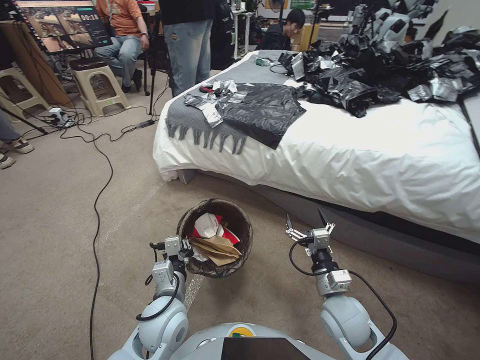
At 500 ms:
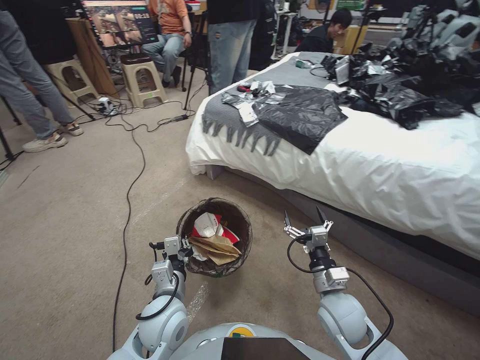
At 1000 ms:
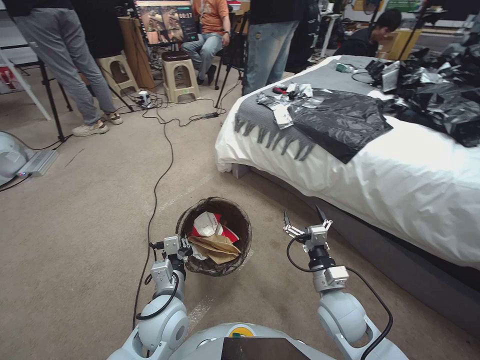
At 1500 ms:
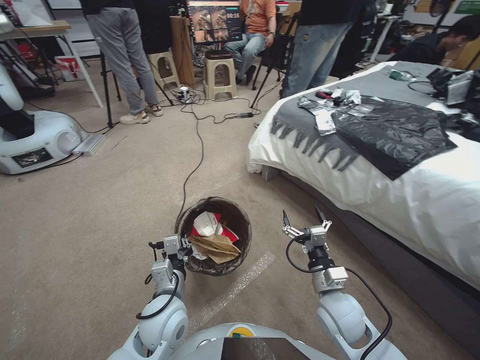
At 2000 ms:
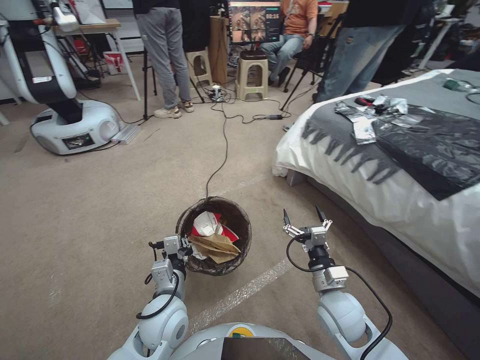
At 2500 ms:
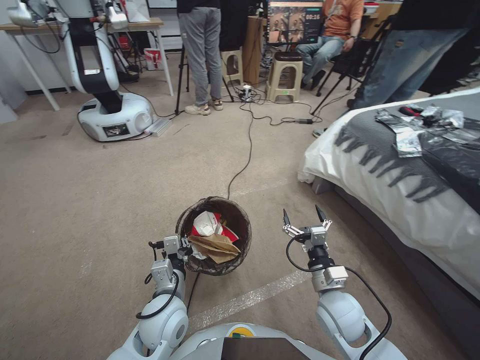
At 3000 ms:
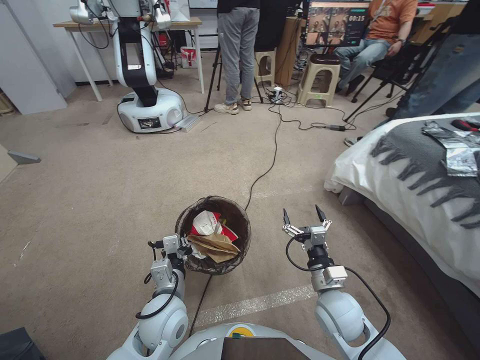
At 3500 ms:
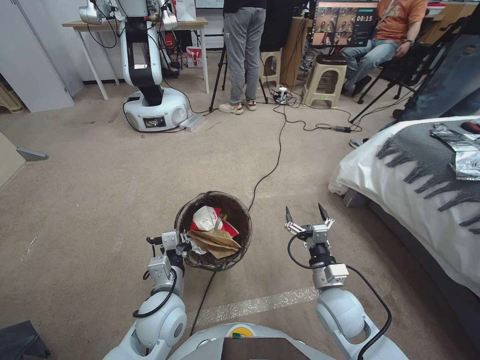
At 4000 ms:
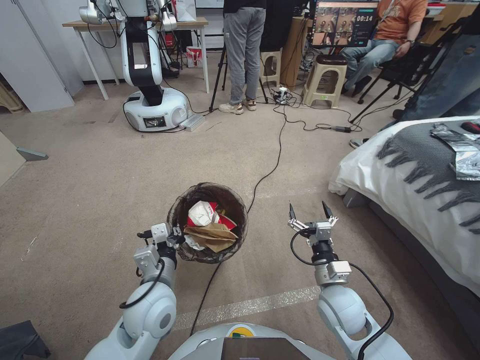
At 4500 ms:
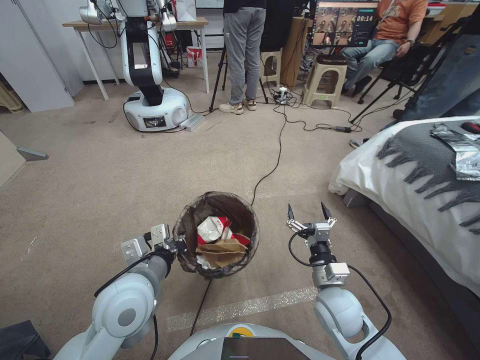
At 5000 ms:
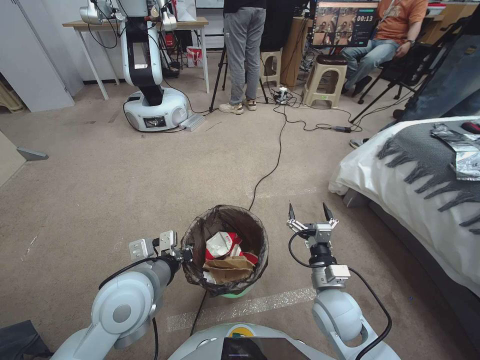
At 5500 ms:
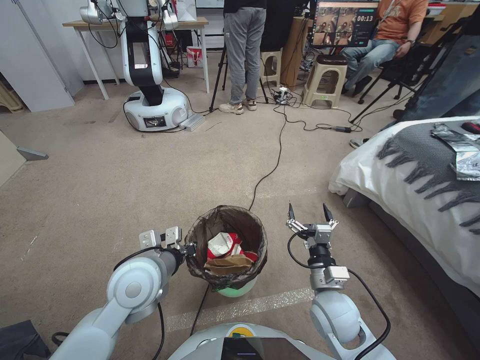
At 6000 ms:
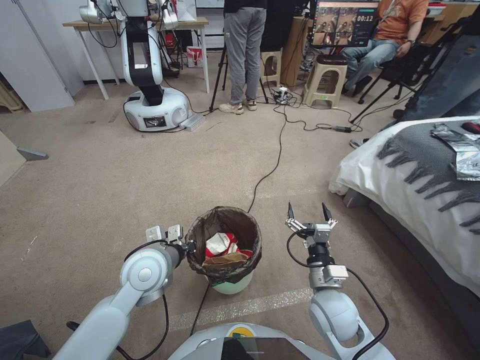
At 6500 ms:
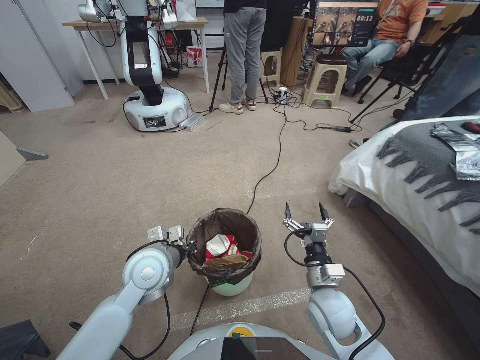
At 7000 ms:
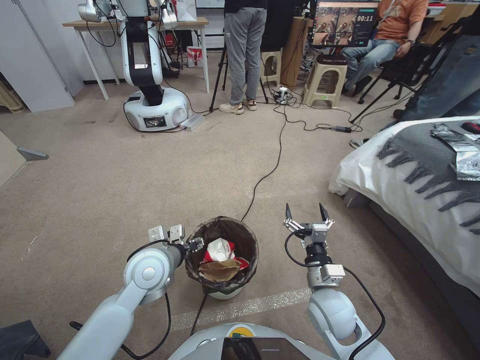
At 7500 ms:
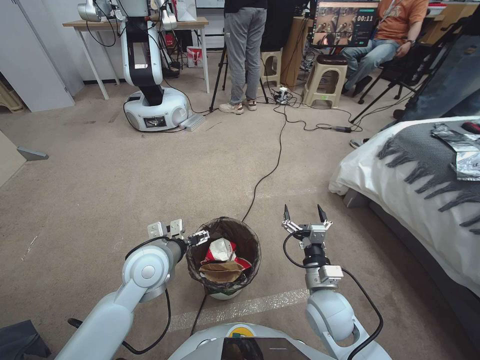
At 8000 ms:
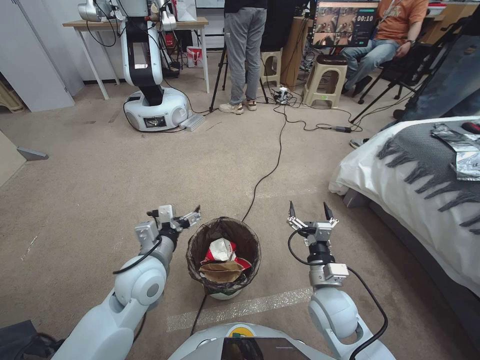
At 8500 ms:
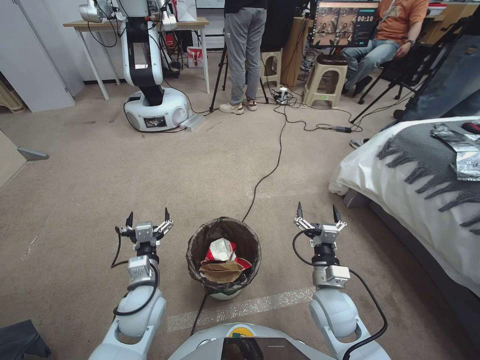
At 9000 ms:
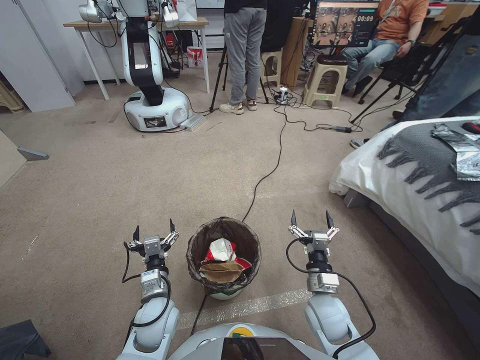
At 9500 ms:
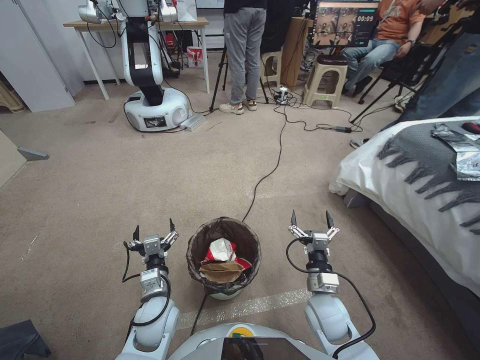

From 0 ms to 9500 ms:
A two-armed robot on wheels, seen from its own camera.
Task of the whole recording: Pick up the trash bin, then pick up the garbage from the floor and place it into the trash bin.
From 2000 ms to 4000 ms: The left gripper changes place by approximately 5 cm.
From 4000 ms to 5500 ms: The left gripper heads upward, covering approximately 5 cm.
From 5500 ms to 7500 ms: The left gripper opens.
From 7500 ms to 9500 ms: The left gripper shifts roughly 15 cm downward and backward, while the right gripper changes place by approximately 5 cm.
